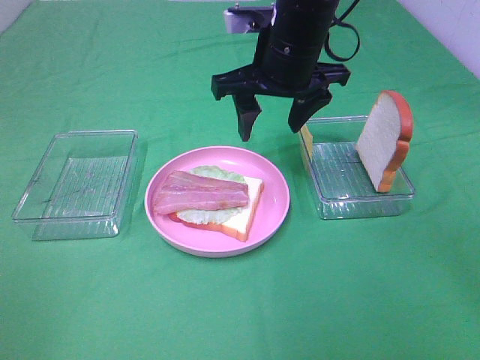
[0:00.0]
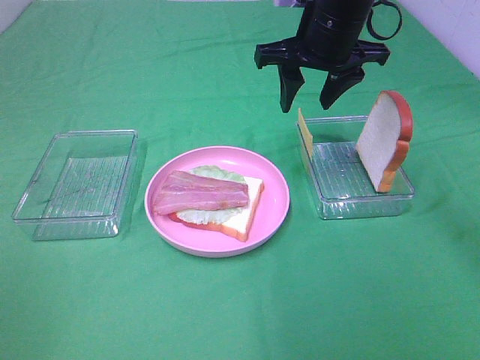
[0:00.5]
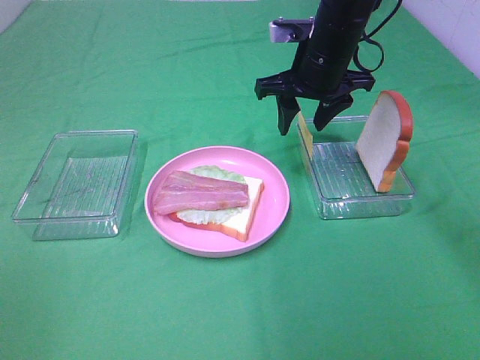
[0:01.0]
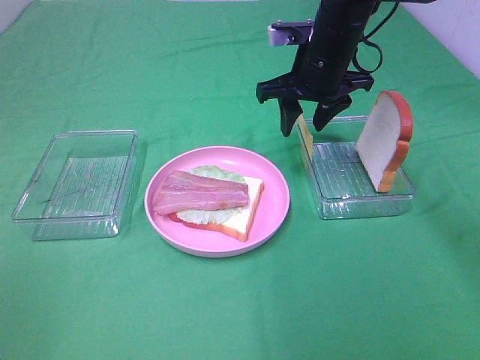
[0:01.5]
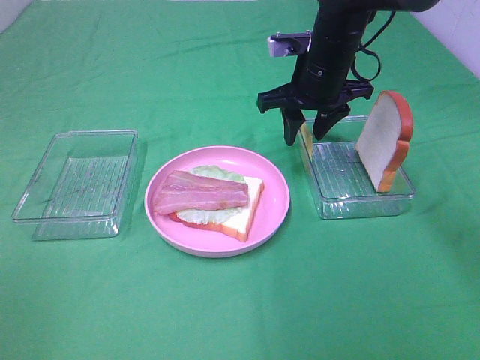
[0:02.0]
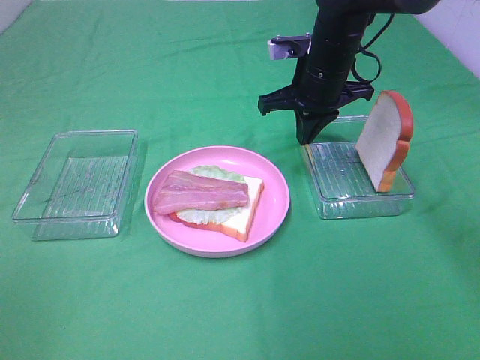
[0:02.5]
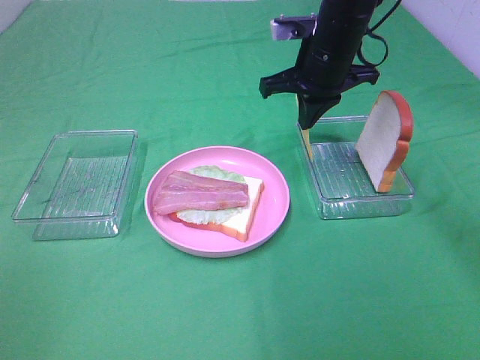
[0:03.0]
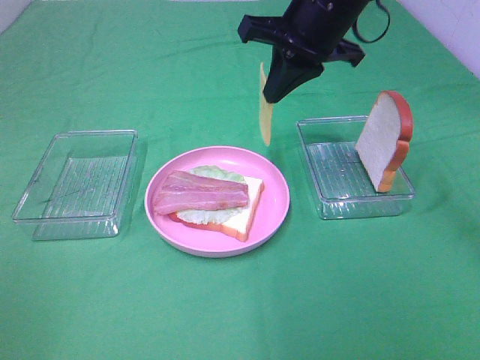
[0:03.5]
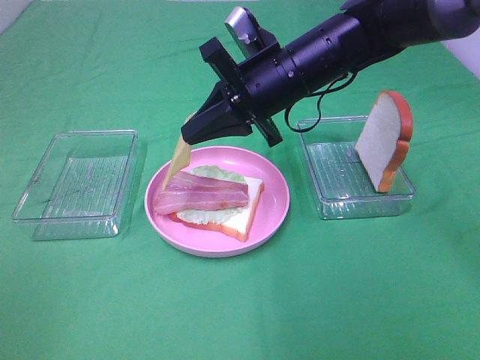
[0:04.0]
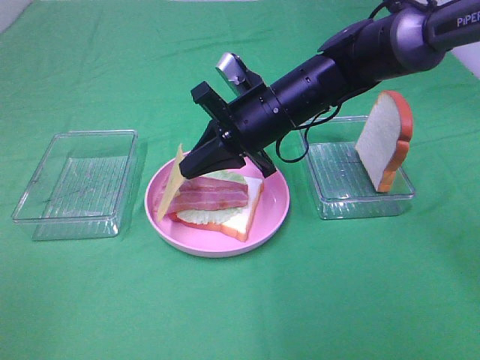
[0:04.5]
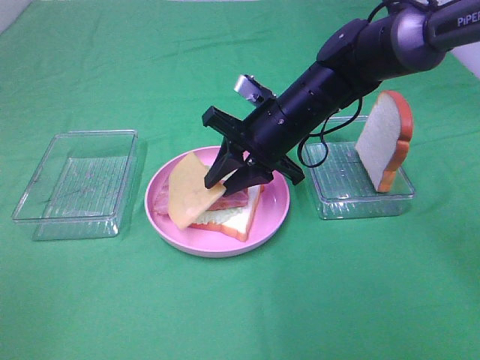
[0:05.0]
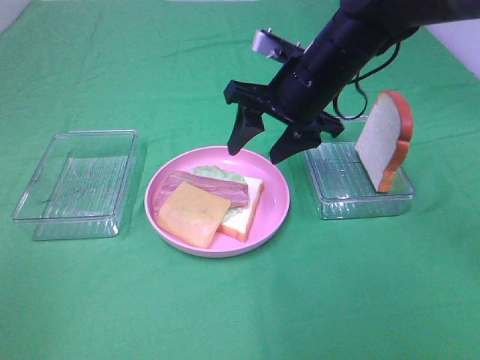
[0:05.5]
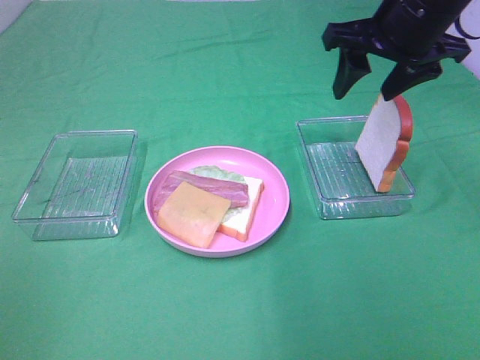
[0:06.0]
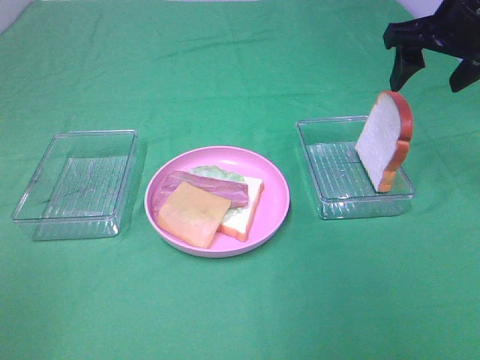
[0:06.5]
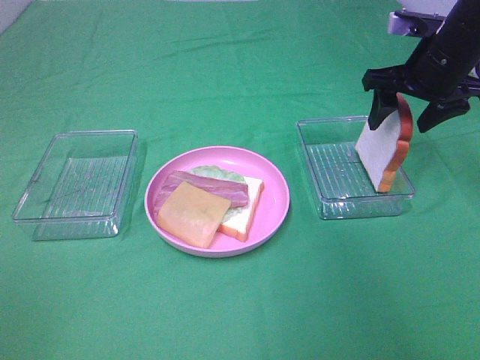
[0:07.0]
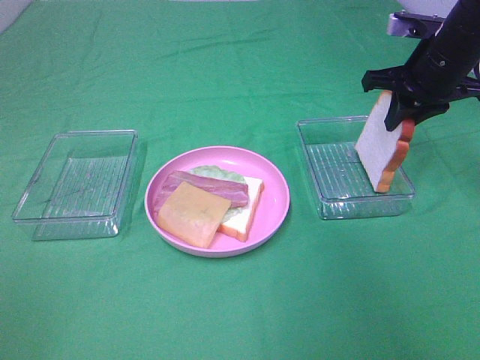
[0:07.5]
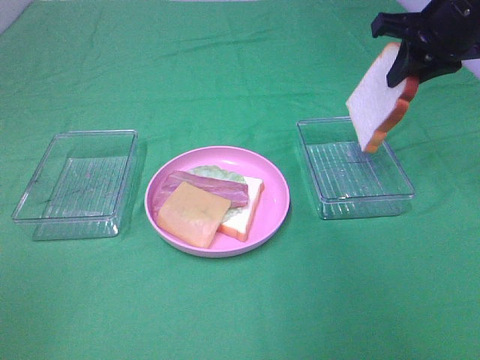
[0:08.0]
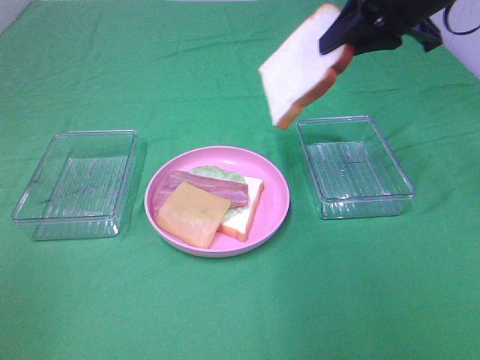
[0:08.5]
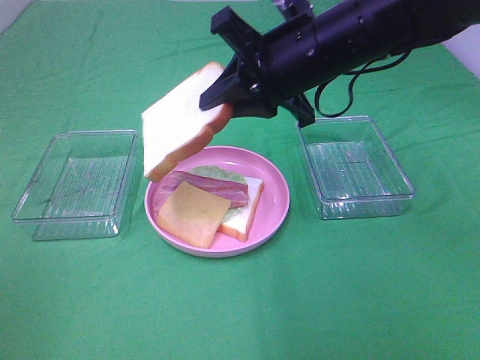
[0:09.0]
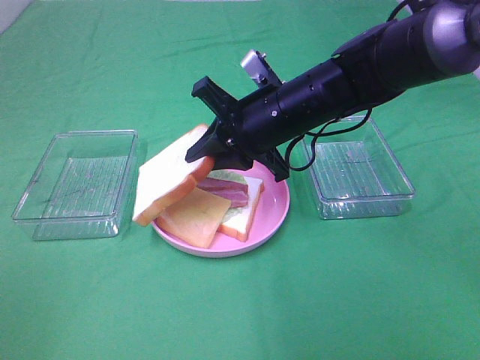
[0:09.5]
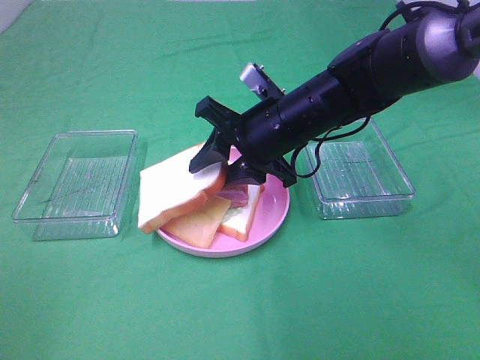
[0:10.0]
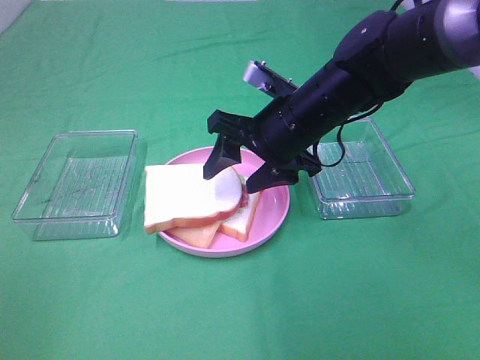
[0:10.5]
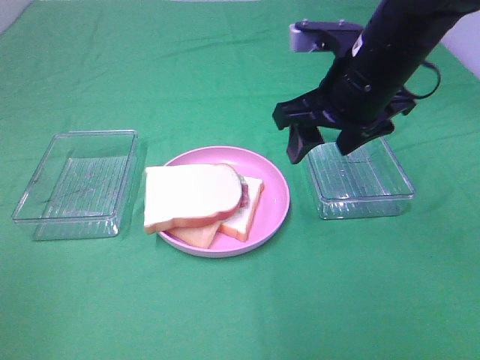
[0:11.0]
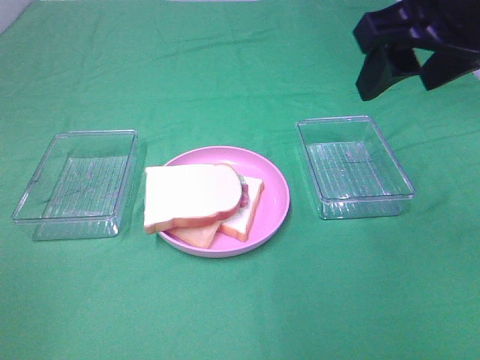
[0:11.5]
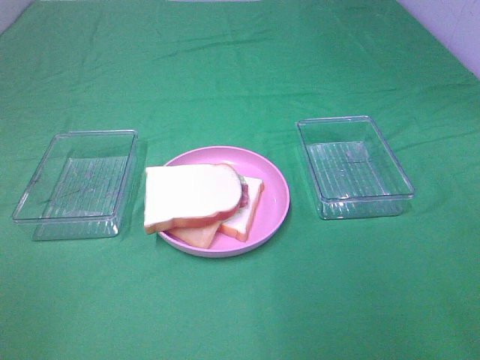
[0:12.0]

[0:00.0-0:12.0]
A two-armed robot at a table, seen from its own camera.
Task of the whole recording: Make sandwiches.
Step, 0:00.0 to 0:02.5: Right hand:grab the cheese slice.
Step, 0:03.0 to 0:05.0: Right hand:place the cheese slice on top of the bacon.
Step, 0:05.5 to 0:07.5: Right hand:grab the bread slice.
Step, 0:08.0 to 0:10.5: Right hand:place the bread slice on the cheese slice.
0:00.0 to 0:02.0: The right gripper travels downward, forward and to the right by some 10 cm.
0:02.0 to 0:04.0: The right gripper shifts roughly 5 cm backward, travels upward and back again, about 10 cm each way, and closes up.
0:04.0 to 0:06.0: The right gripper goes approximately 15 cm to the right and upward, and opens its fingers.
0:06.0 to 0:08.0: The right gripper goes approximately 5 cm to the right, and closes its fingers.
0:08.0 to 0:10.0: The right gripper shifts some 20 cm to the left and downward, and opens up.
0:10.0 to 0:12.0: The right gripper shifts approximately 35 cm backward, to the right and upward.

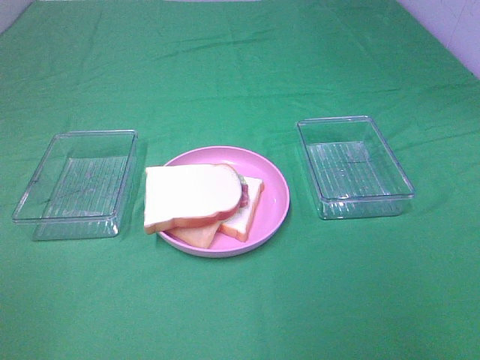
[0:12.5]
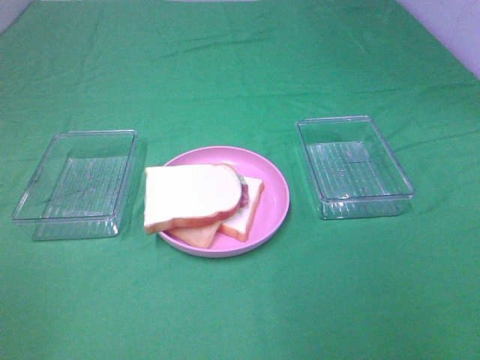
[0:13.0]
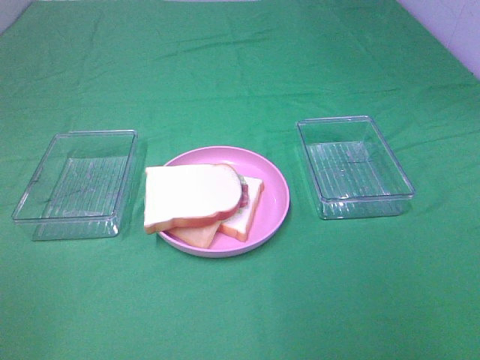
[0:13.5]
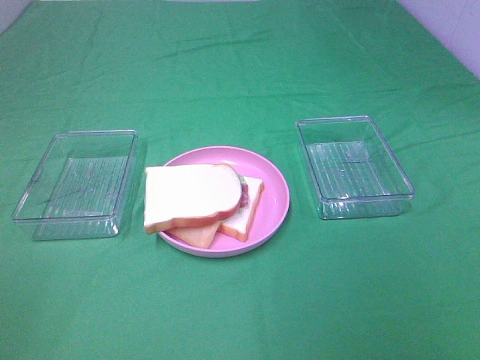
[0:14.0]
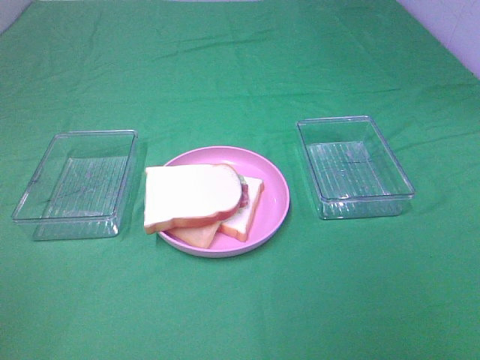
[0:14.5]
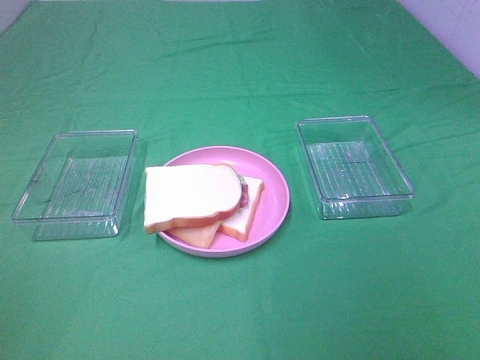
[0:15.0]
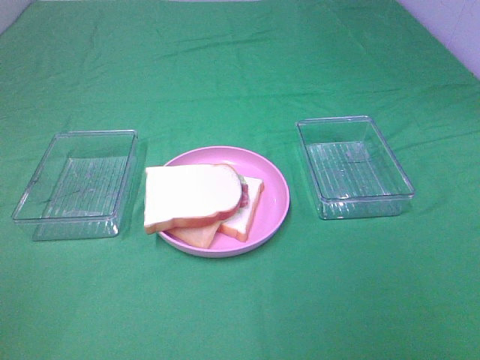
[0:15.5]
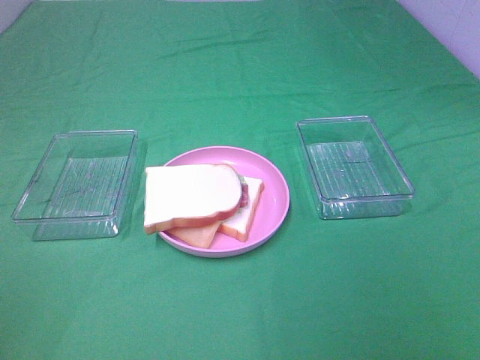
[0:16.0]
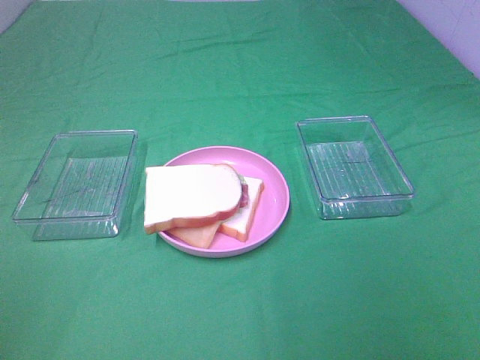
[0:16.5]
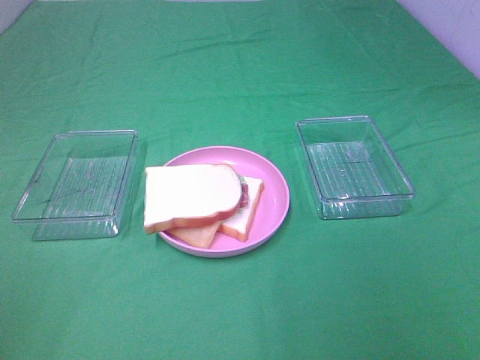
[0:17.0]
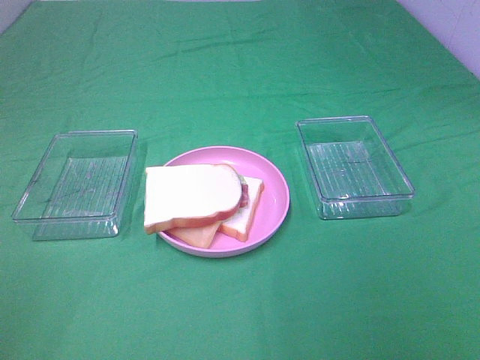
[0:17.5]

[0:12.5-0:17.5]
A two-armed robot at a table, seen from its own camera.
Task of the whole recording: Make sandwiches.
0:15.0 to 0:17.5: Both grippers stay about where they are.

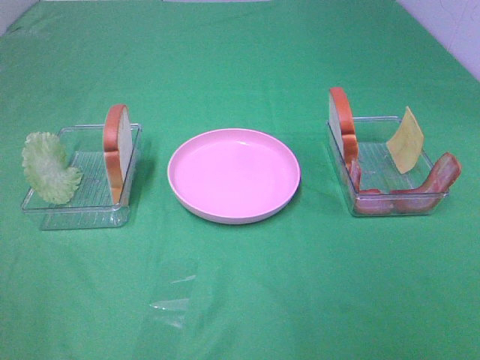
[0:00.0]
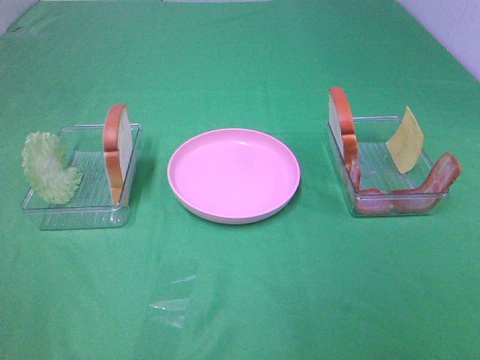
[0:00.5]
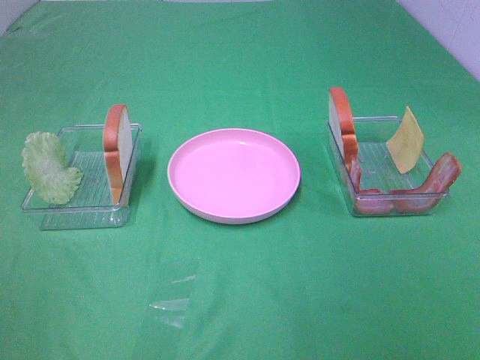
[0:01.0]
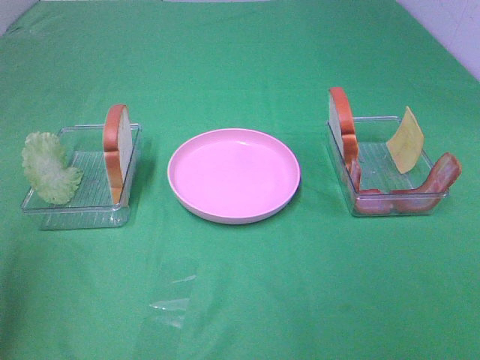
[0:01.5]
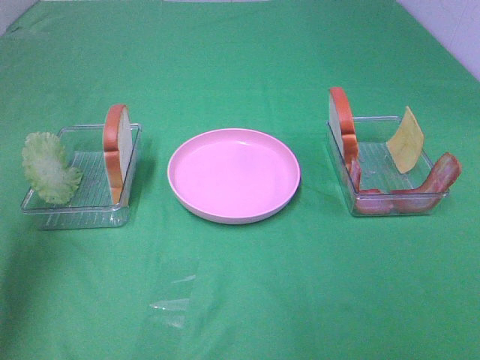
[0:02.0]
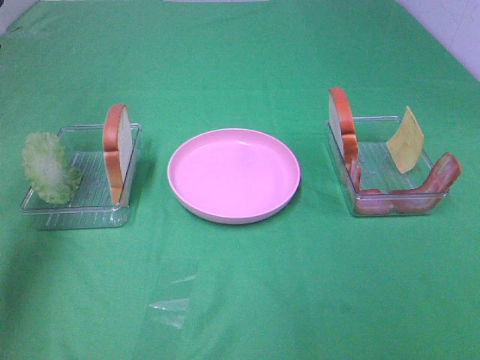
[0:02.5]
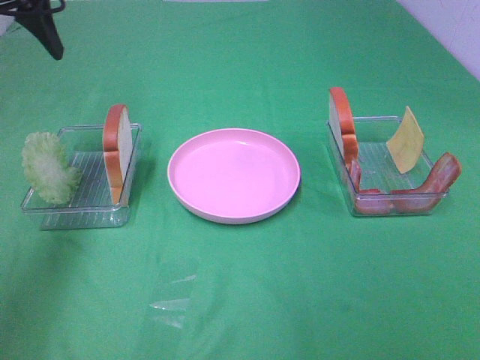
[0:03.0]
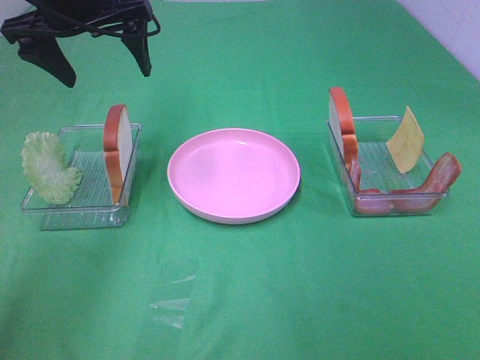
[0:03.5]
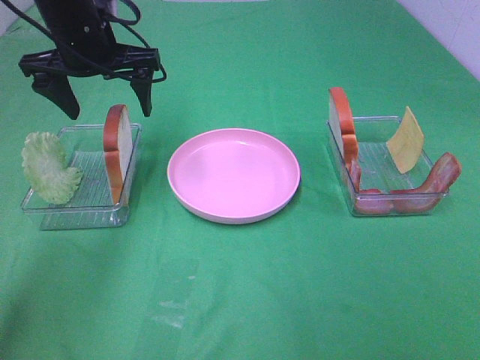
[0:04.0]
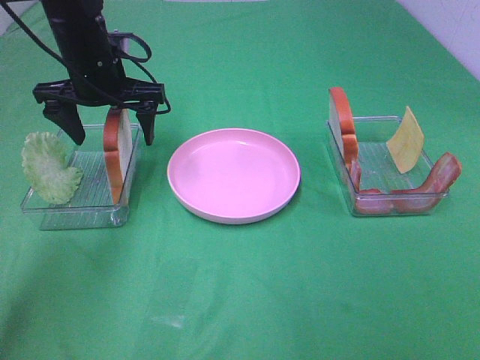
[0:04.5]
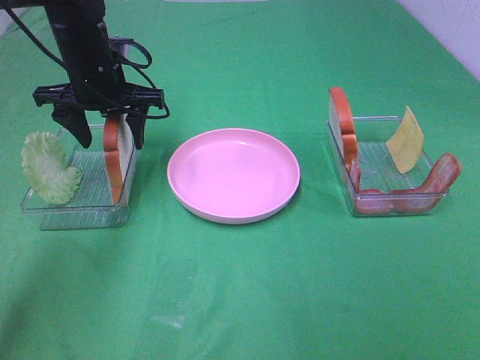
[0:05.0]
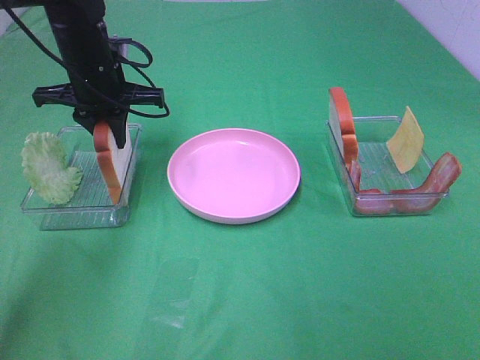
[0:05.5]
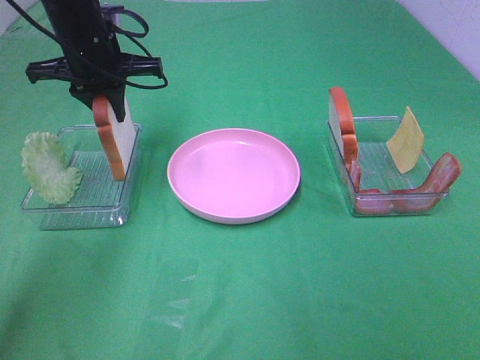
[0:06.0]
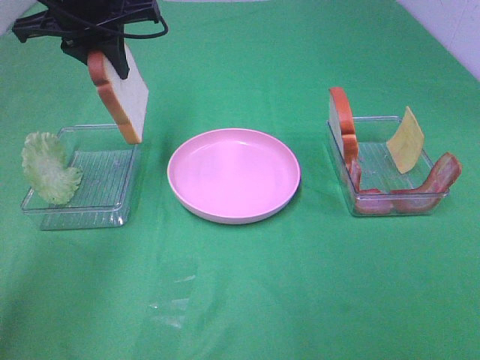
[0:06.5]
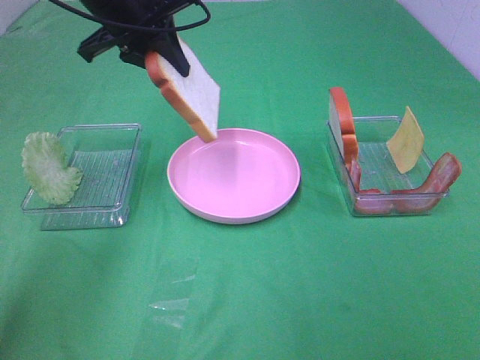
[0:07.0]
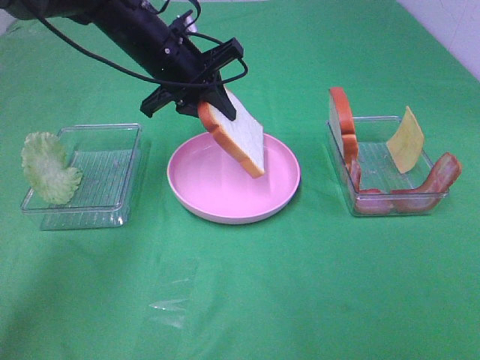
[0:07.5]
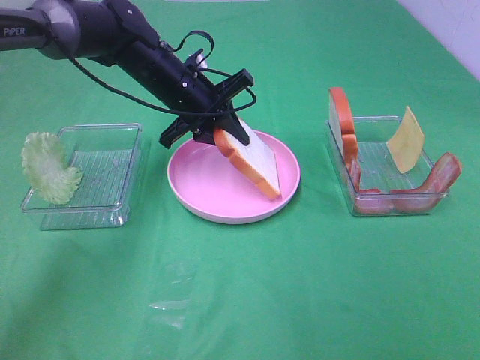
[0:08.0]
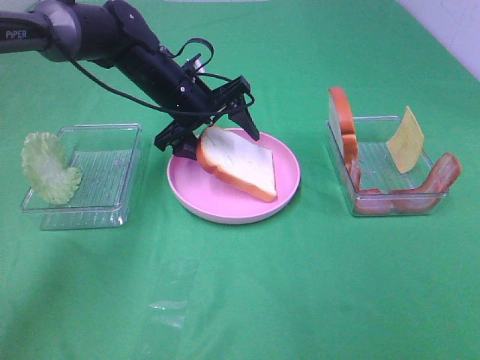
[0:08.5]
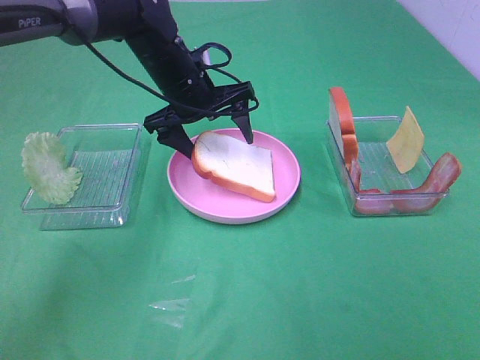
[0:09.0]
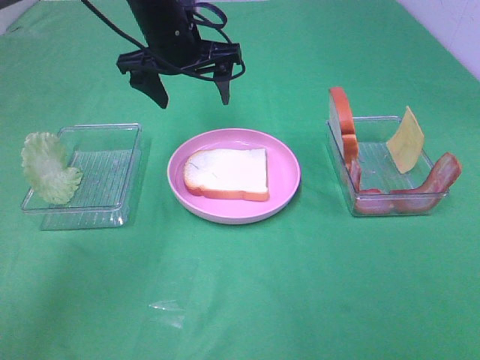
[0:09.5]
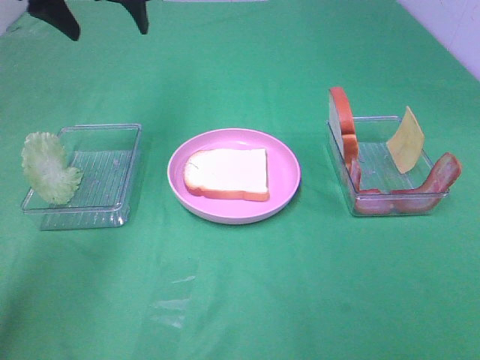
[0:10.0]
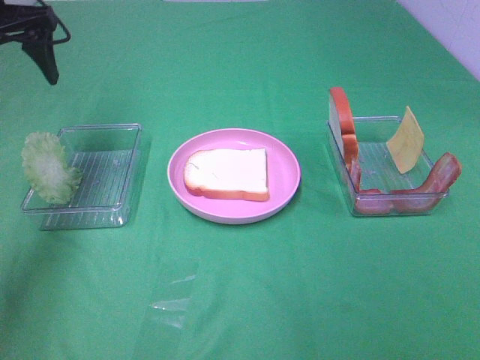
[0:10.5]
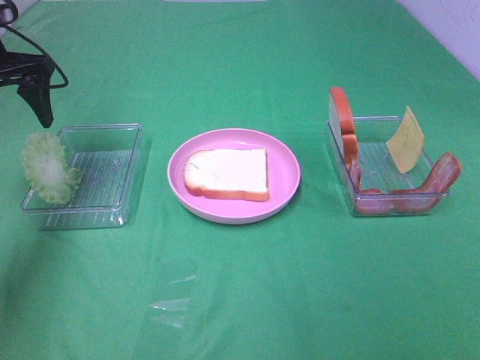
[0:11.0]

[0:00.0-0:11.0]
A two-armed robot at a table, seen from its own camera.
Task of the whole recording: Make sandwiches.
Step, 0:00.0 to 0:06.0: Left hand:grab the bread slice.
Step, 0:06.5 to 0:09.0: Left hand:place the bread slice on the plate.
0:00.0 to 0:02.0: The left gripper shifts about 30 cm forward.
0:02.0 to 0:03.5: The left gripper moves to the right, forward and downward, approximately 20 cm.
0:03.5 to 0:05.5: The left gripper heads downward, covering approximately 10 cm, and closes up.
0:05.5 to 0:07.5: The left gripper shifts some 10 cm to the right, and travels upward and back again, roughly 10 cm each way.
0:07.5 to 0:09.0: The left gripper opens up.
0:09.0 to 0:11.0: The left gripper goes approximately 25 cm to the left.
